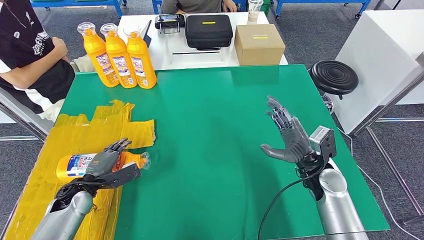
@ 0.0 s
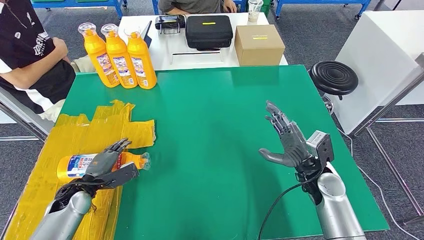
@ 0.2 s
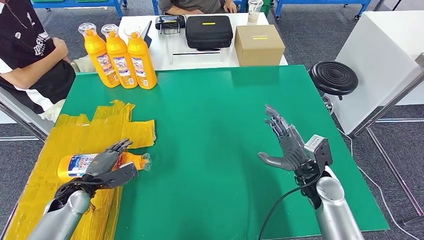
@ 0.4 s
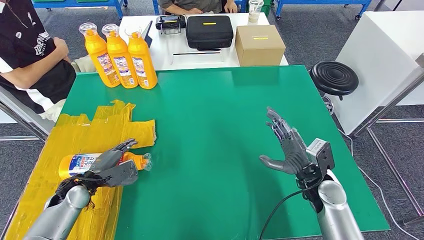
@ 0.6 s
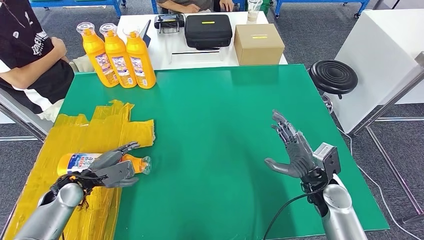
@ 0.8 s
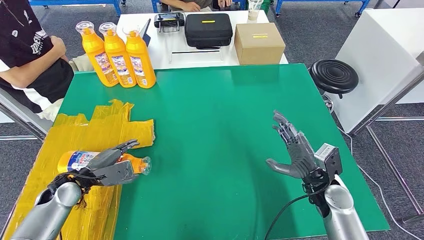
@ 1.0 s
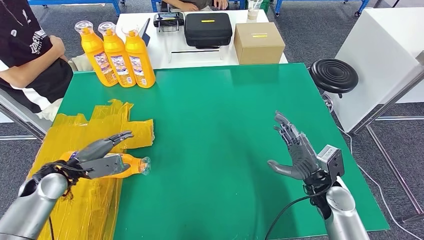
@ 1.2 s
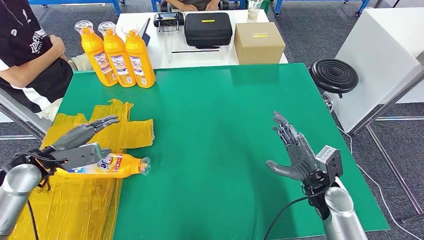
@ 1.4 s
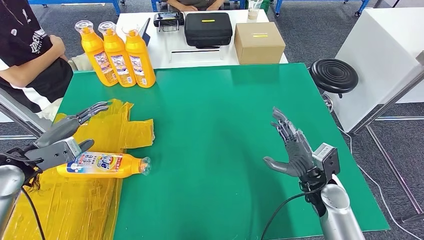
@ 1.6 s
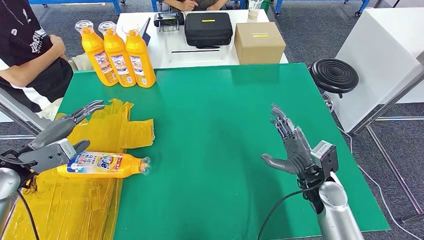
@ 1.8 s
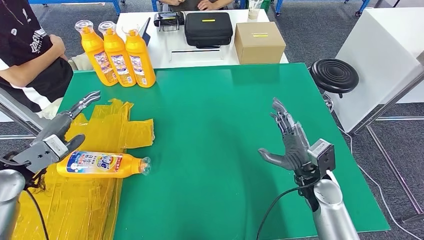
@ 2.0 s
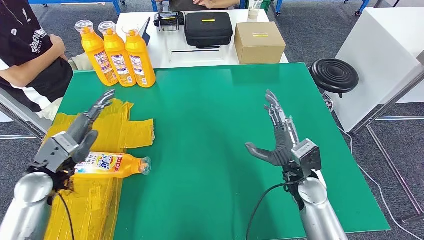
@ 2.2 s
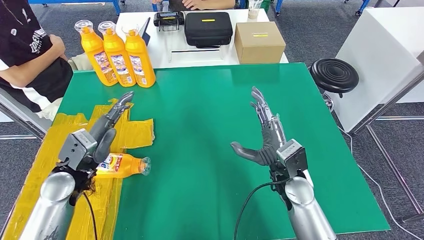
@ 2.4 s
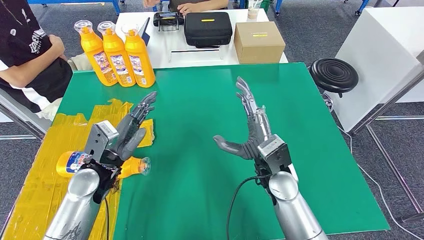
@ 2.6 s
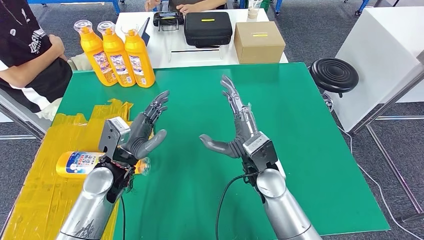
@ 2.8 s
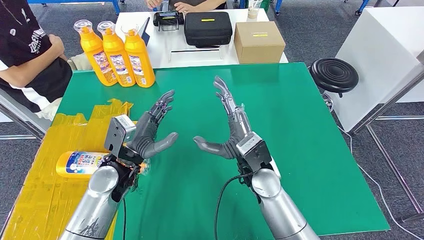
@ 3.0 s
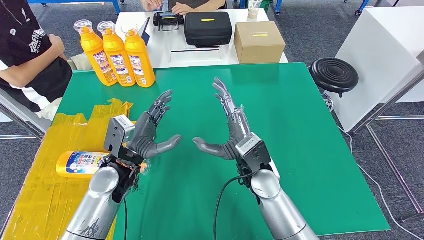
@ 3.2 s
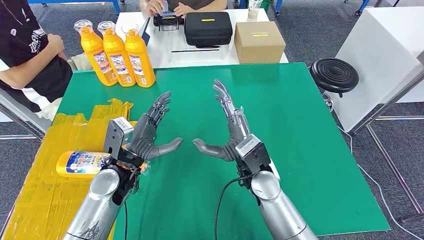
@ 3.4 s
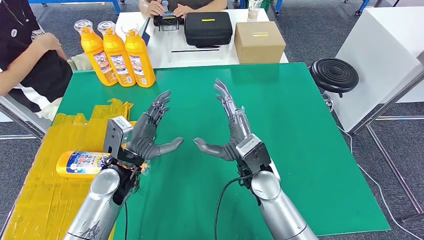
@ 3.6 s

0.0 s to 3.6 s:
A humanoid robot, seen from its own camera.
Step, 0.0 to 3.6 s: Flip the fast-moving consumer goods bottle to the front side.
